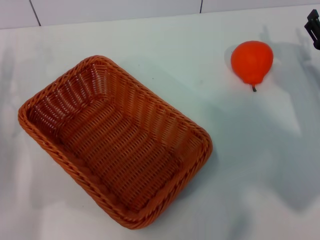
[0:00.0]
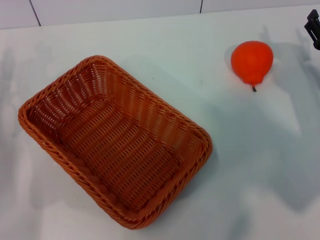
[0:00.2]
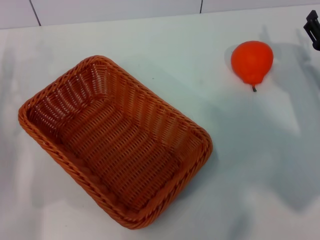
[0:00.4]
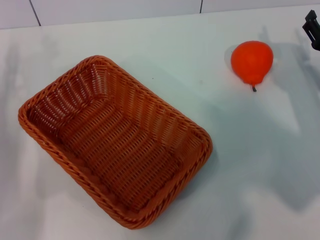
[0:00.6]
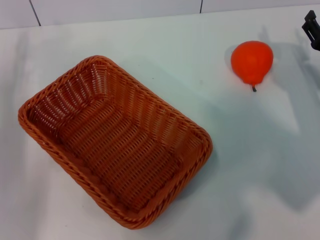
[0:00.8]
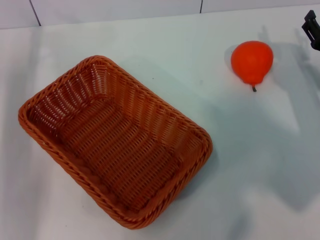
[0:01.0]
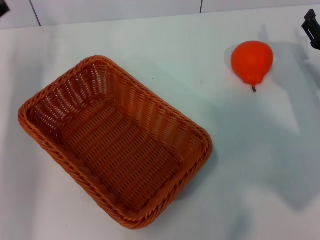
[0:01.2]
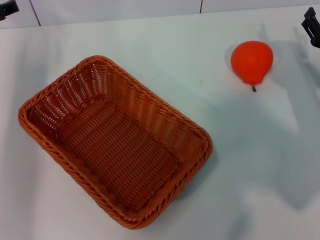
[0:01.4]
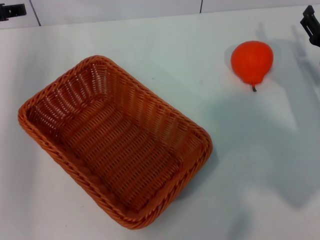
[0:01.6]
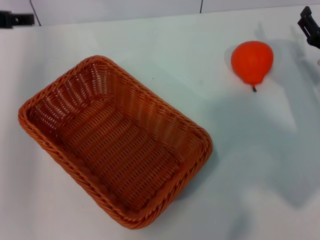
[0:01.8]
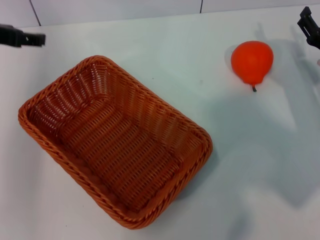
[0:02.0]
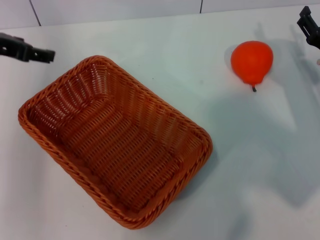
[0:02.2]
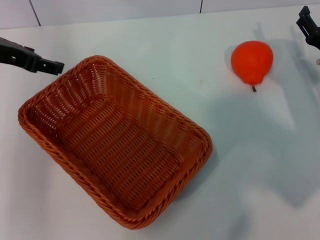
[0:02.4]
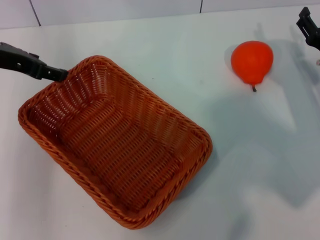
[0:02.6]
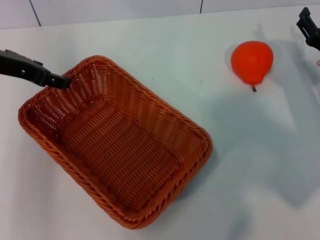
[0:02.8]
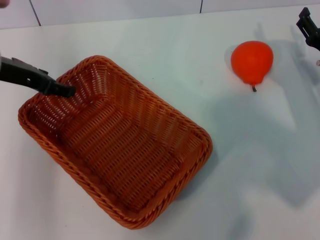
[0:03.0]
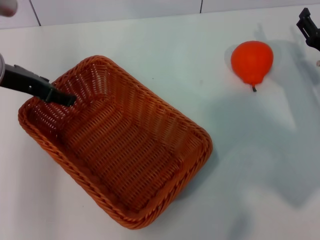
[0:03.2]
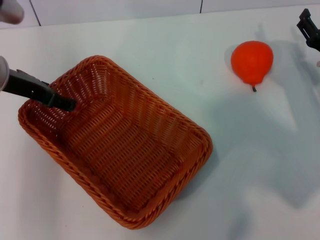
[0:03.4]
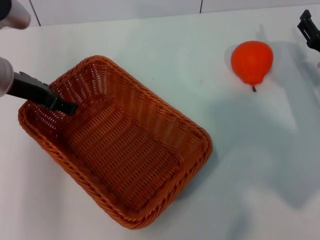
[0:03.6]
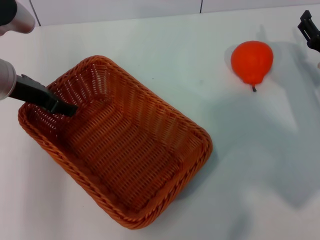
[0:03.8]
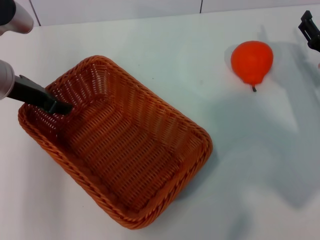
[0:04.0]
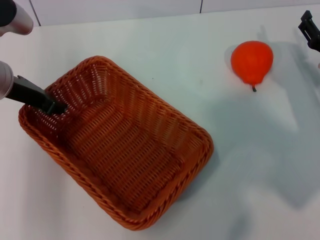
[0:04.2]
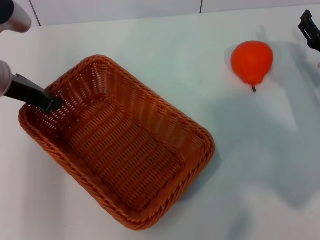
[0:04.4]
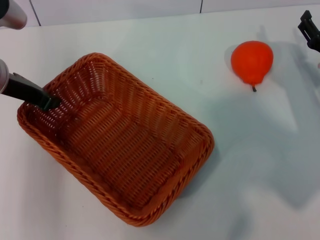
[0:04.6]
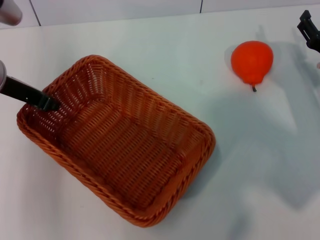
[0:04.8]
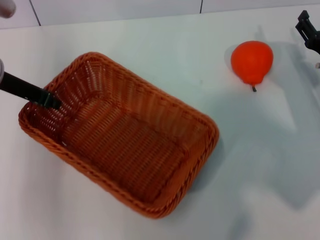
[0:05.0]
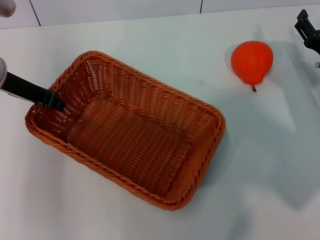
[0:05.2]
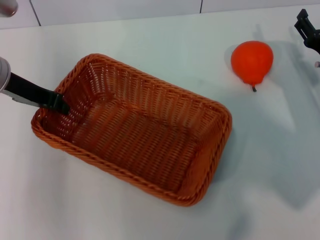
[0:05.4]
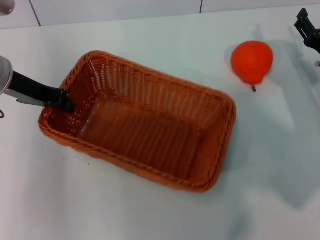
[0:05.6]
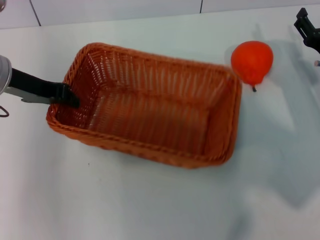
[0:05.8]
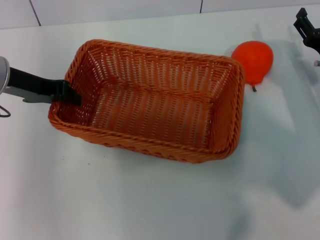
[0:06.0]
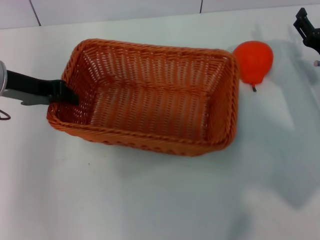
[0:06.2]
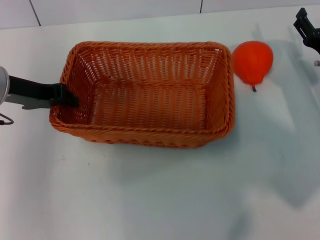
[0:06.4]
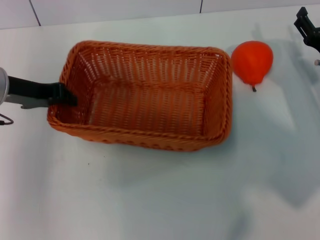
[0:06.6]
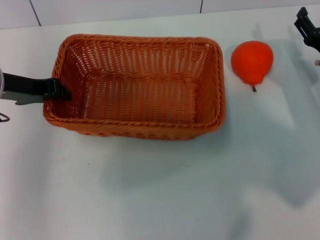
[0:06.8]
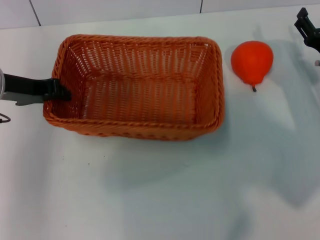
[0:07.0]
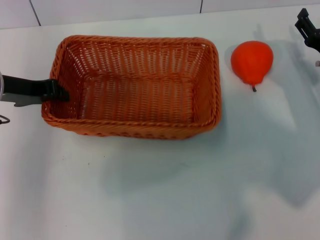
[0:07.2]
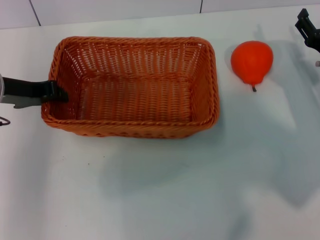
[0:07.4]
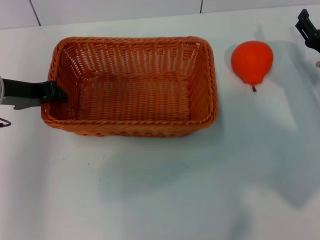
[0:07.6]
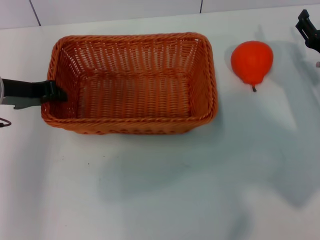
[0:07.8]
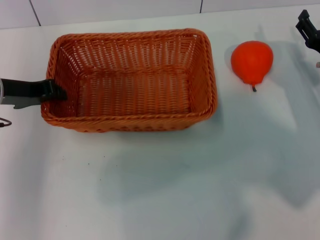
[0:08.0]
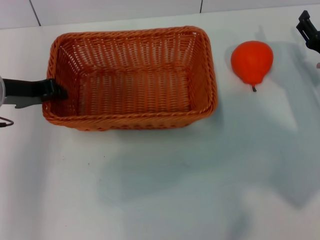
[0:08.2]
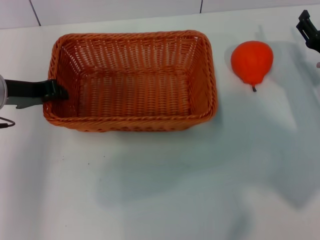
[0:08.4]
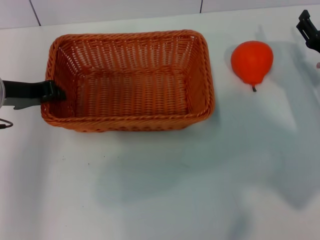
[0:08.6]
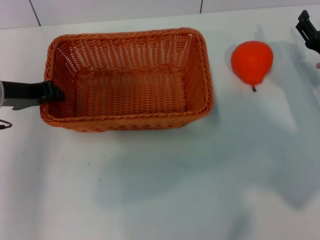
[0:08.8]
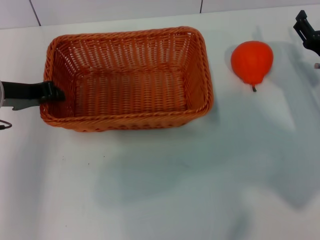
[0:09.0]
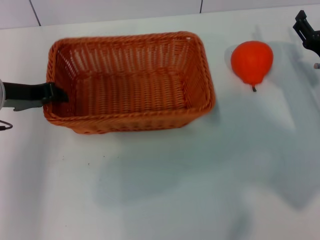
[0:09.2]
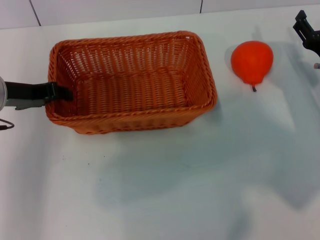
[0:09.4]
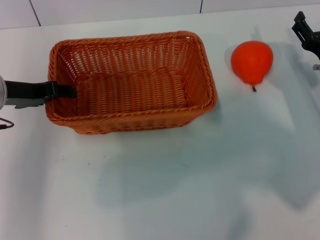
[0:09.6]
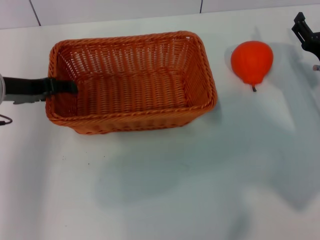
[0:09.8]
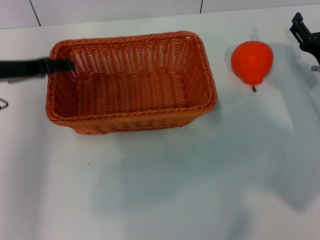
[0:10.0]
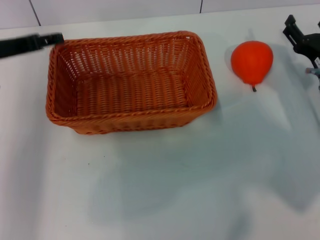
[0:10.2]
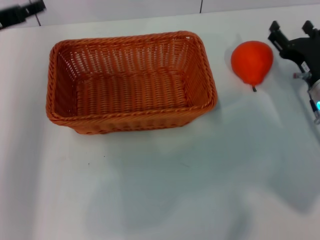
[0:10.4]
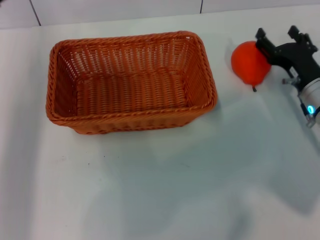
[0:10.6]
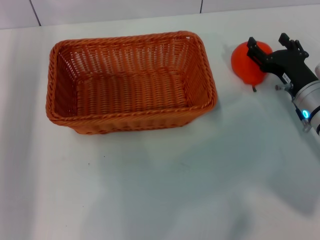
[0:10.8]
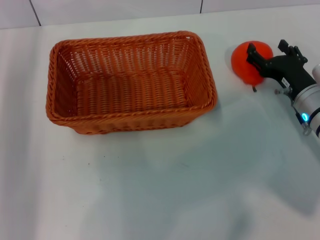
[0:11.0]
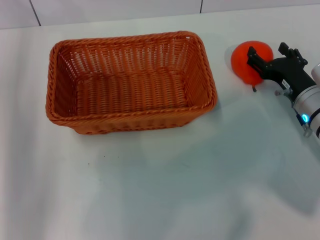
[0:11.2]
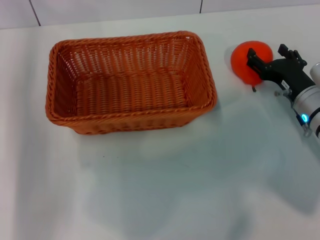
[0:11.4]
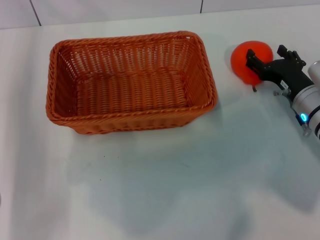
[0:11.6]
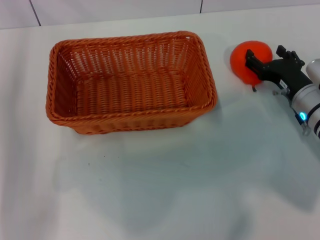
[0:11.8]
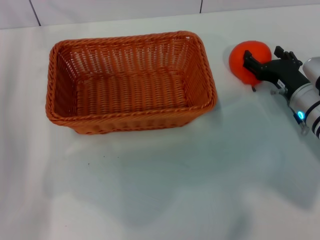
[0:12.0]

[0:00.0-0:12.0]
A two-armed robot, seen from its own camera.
Task of the whole recording: the left gripper pick up the yellow basket and place it horizontally in the middle of the table, the right gripper pick up the orange and place it into the yellow basket.
Step, 0:00.0 to 0:05.6: Pick up the light basket with the left gripper.
Step, 0:05.8 to 0:10.0: Place the light basket in the center of view with the left gripper.
0:00.0 to 0:01.6: The left gripper is displaced upward and forward by about 15 cm.
0:01.6 to 0:03.0: The left gripper heads to the right, covering about 5 cm.
0:03.0 to 0:04.4: The left gripper closes its fingers.
0:04.4 to 0:06.0: The left gripper closes its fingers.
0:06.0 to 0:07.6: There are only small adjustments of the grippers.
0:07.6 to 0:09.0: Both grippers stay put.
0:09.0 to 0:10.4: The left gripper opens.
0:10.4 to 0:12.0: The left gripper travels downward by some 10 cm.

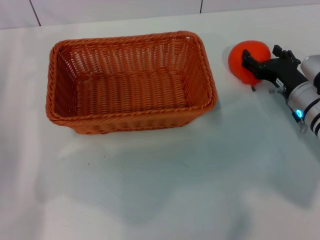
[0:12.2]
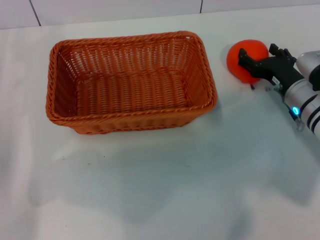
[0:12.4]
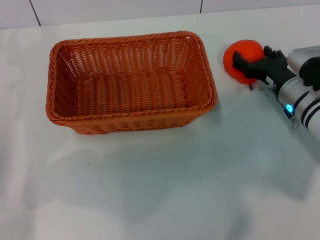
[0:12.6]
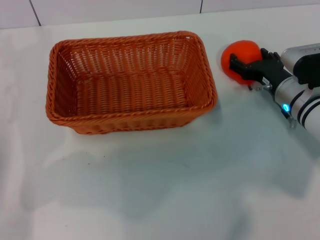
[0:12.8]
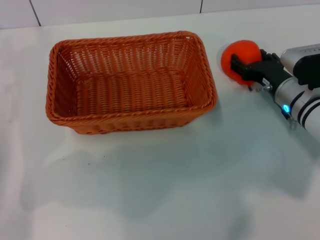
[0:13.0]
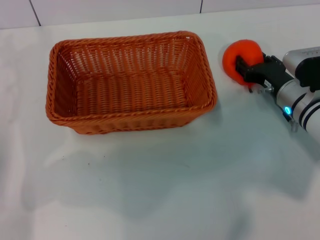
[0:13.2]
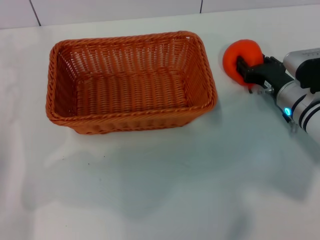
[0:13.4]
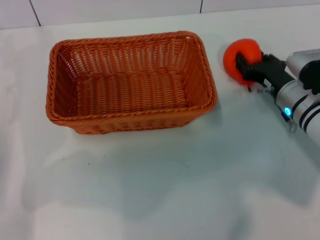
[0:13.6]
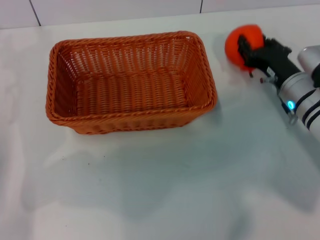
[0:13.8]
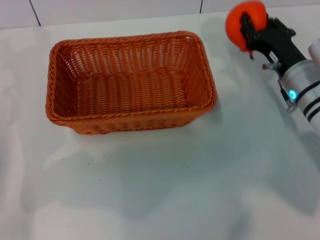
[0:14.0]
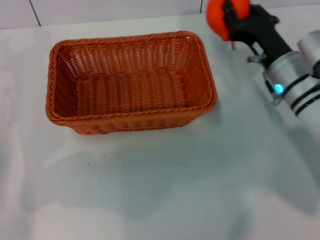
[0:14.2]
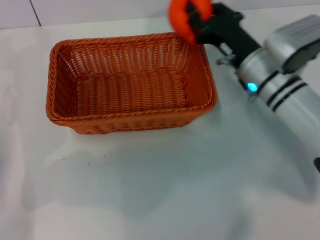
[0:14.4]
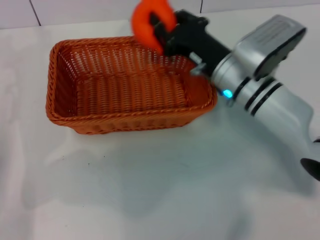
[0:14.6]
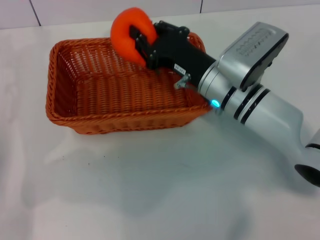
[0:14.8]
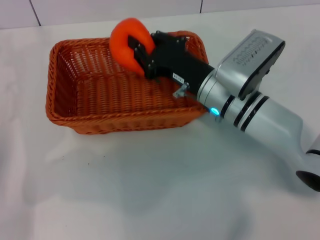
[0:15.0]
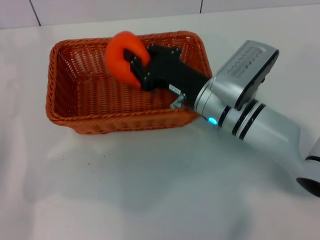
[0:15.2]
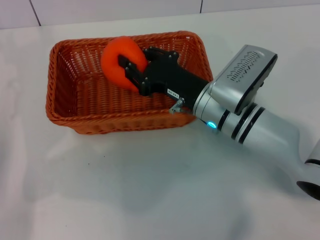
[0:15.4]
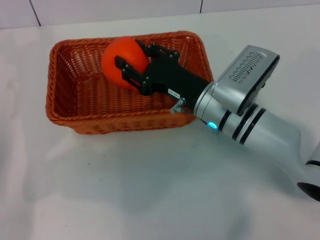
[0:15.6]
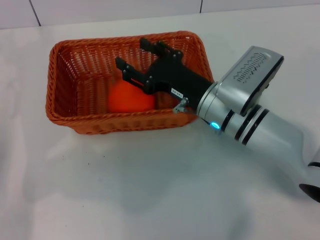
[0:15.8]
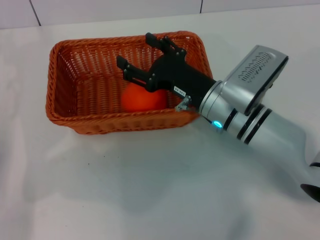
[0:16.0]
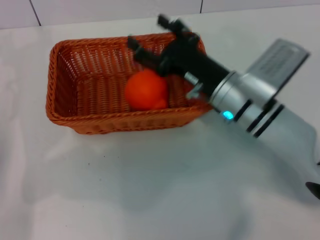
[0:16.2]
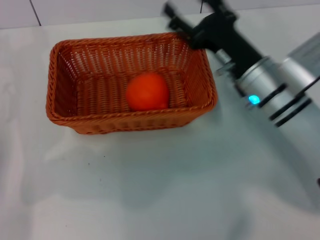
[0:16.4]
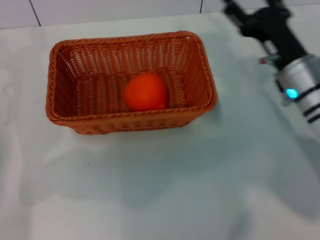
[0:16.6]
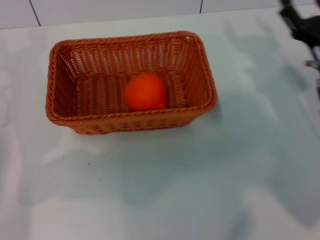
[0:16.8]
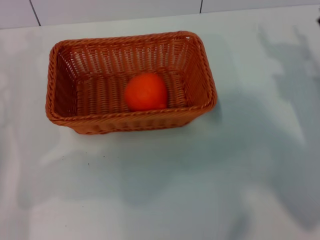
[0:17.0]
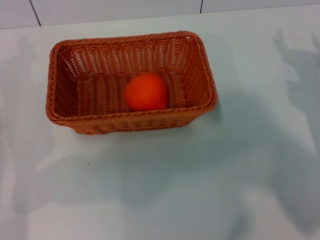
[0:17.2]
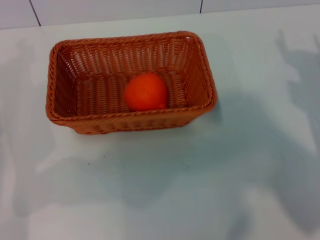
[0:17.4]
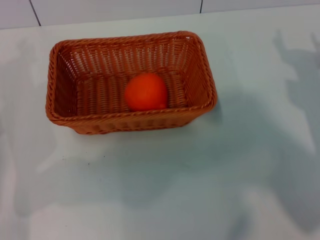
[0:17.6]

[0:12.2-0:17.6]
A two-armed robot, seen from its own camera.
Task of the whole recording: the left gripper pick up the yellow basket and place it horizontally in the middle of the table, the right gripper pick up the orange and place it into the yellow basket.
Step, 0:14.0 to 0:15.8: Place the orange into the light basket with the right gripper.
0:12.2 to 0:13.6: The right gripper closes.
0:13.6 to 0:15.0: The right gripper goes approximately 15 cm to the left and upward, and closes up.
0:15.0 to 0:16.2: The right gripper opens up.
0:16.2 to 0:17.6: The right gripper travels to the right by approximately 20 cm.

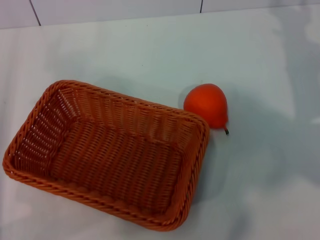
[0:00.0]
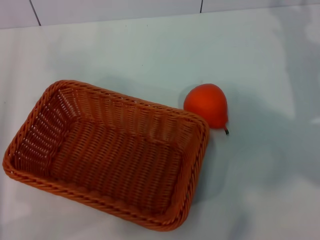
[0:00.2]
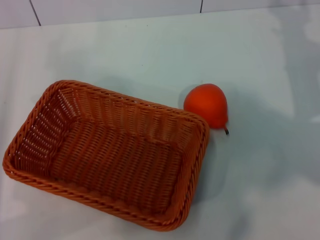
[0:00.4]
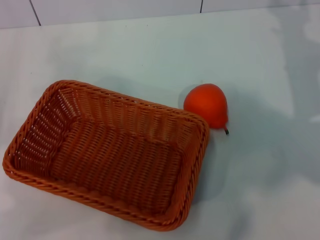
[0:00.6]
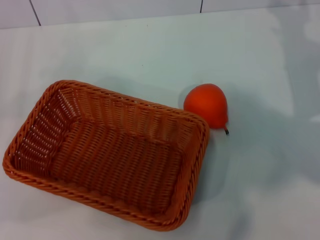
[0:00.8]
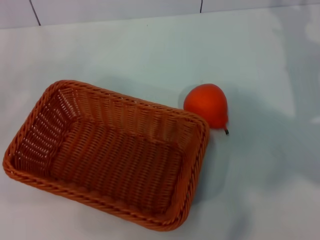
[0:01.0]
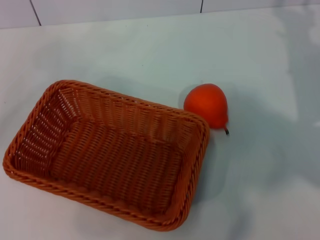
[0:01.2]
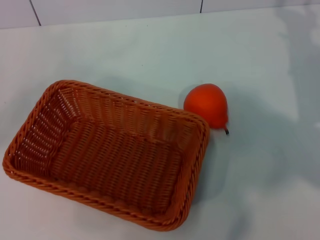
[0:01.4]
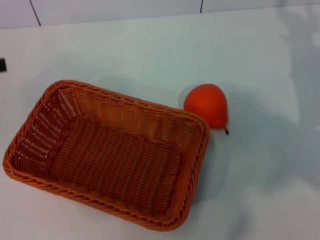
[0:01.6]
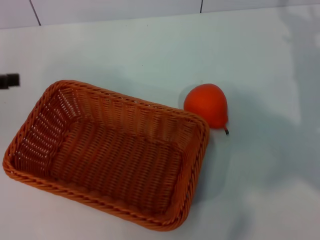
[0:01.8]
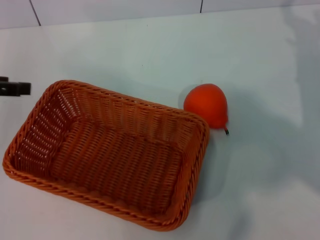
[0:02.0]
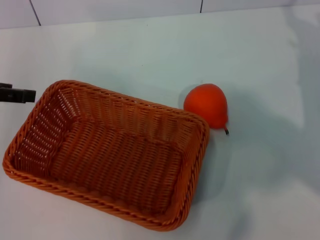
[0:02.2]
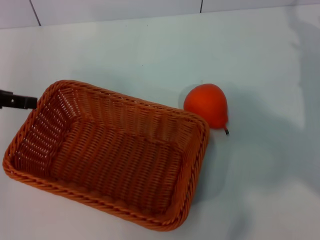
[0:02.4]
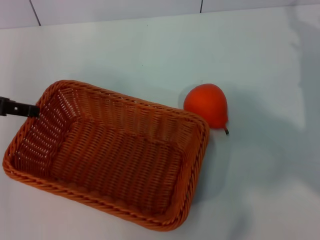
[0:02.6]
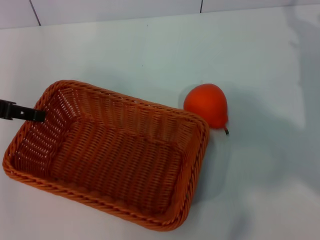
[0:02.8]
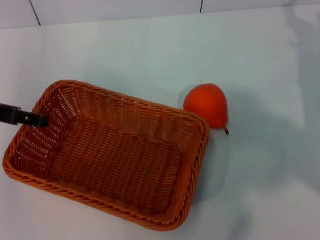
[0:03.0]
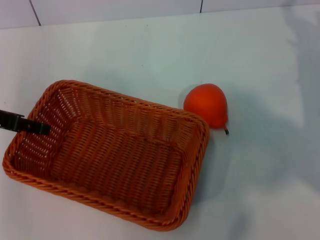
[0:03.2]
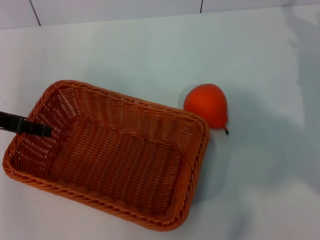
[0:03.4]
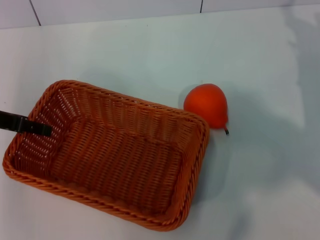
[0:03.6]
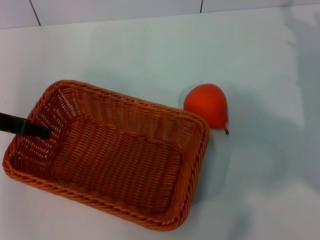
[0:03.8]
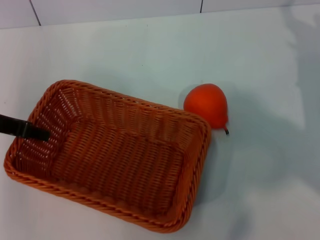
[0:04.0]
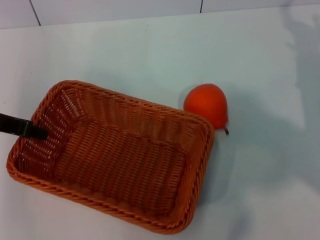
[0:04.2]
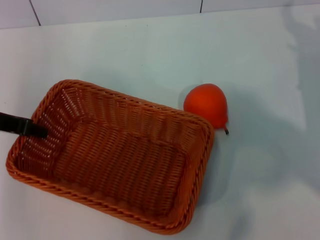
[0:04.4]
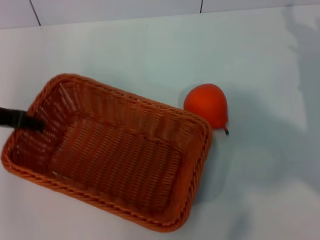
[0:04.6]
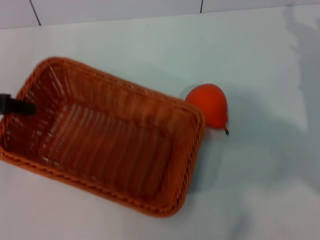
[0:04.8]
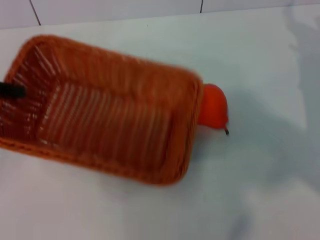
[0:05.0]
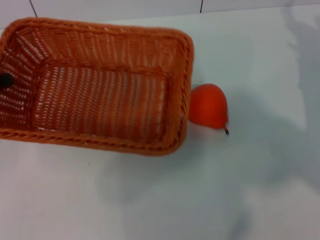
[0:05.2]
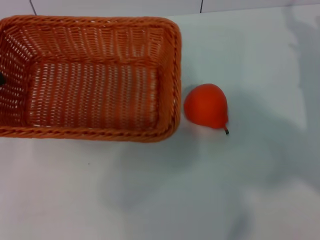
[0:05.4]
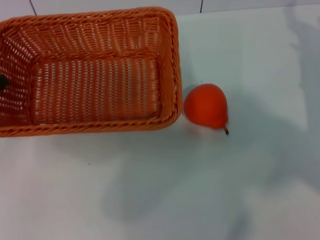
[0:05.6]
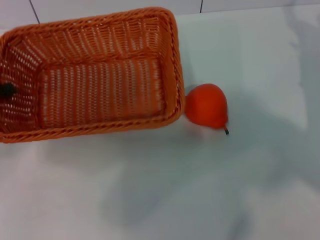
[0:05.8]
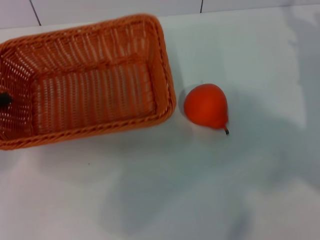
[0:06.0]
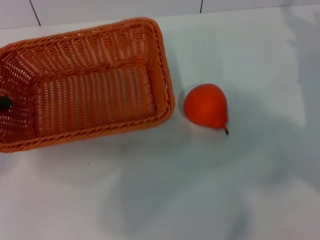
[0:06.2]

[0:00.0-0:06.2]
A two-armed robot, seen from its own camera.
Task of the whole recording: the left gripper pick up the yellow basket and place it horizontally in the middle of the table, the right gripper pick up the orange and place it into the yellow basket.
Step, 0:00.0 to 0:04.8: Pick up the light basket with the left gripper.
0:00.0 to 0:01.6: The left gripper is displaced upward and forward by about 15 cm.
0:01.6 to 0:03.2: The left gripper moves to the right, some 10 cm.
0:03.2 to 0:04.6: The left gripper closes.
0:04.6 to 0:06.2: The left gripper is displaced to the left, downward and backward by some 10 cm.
